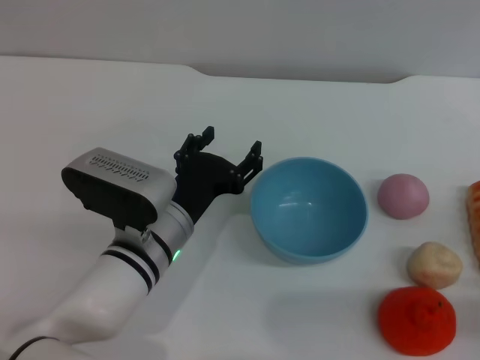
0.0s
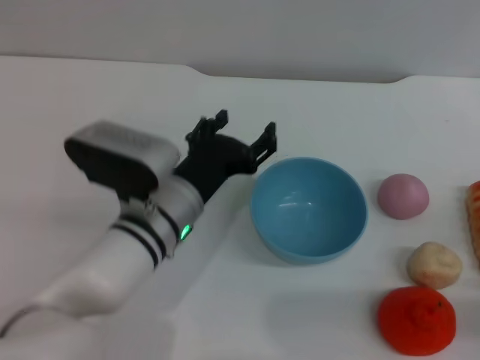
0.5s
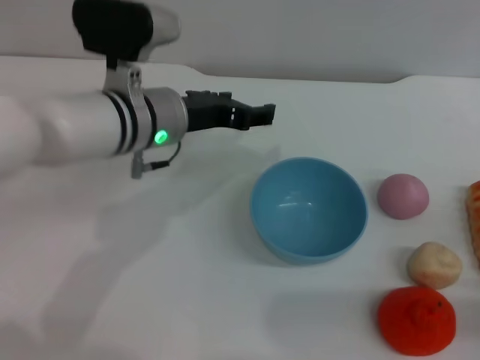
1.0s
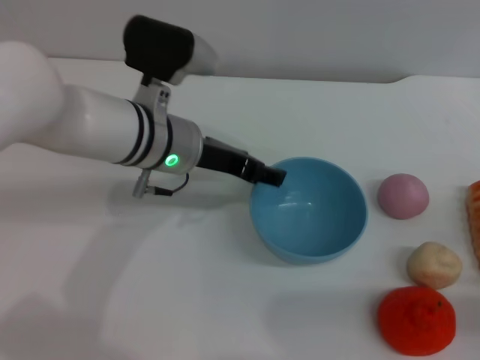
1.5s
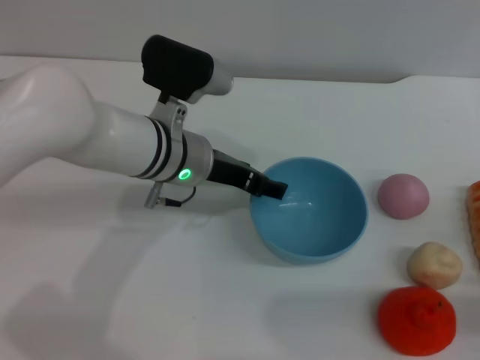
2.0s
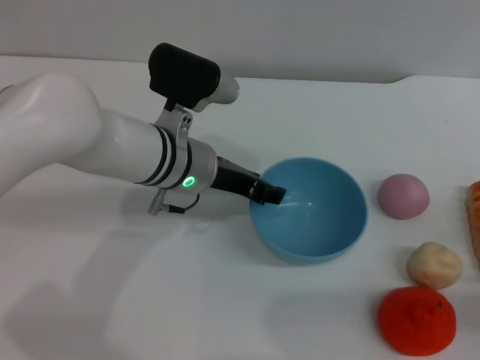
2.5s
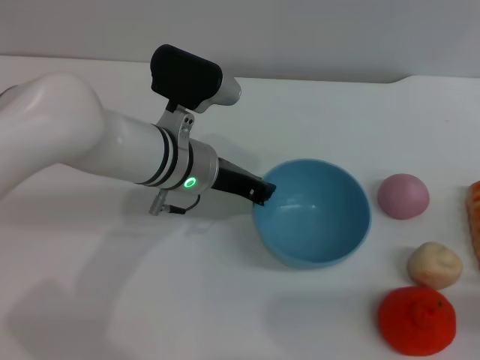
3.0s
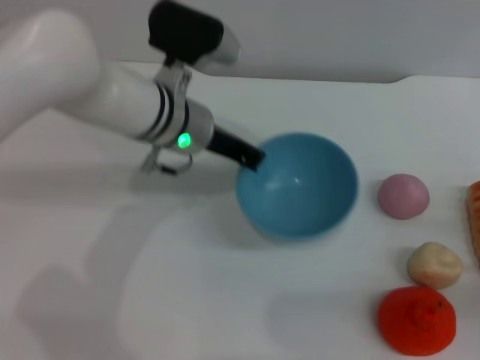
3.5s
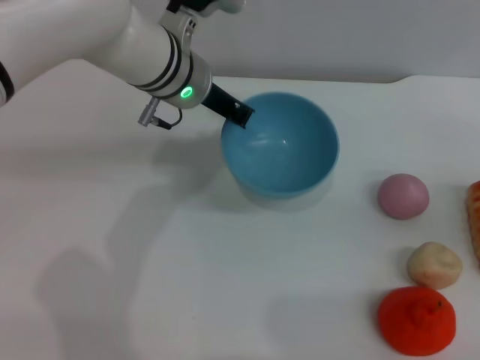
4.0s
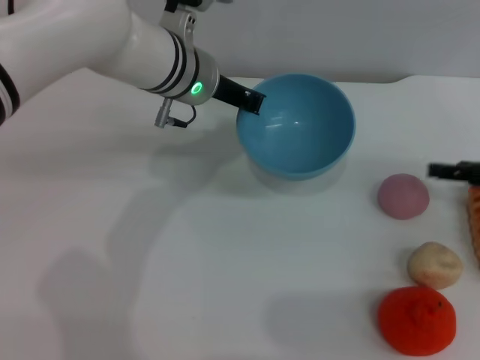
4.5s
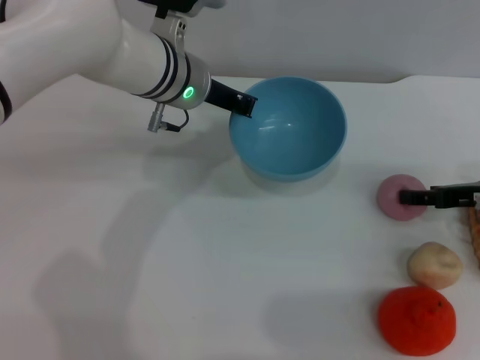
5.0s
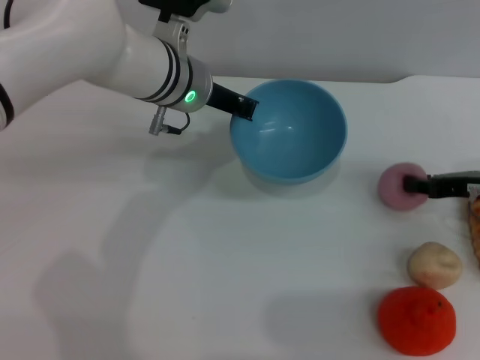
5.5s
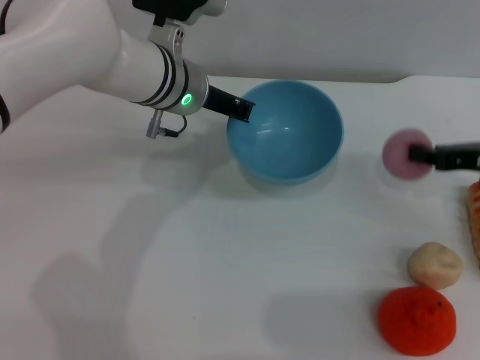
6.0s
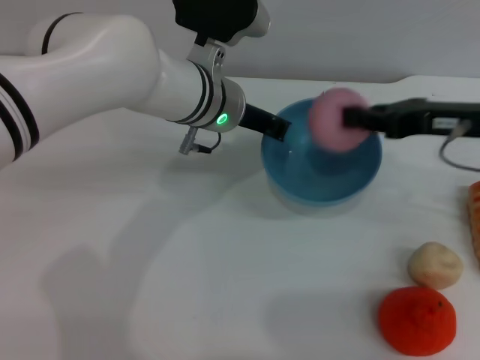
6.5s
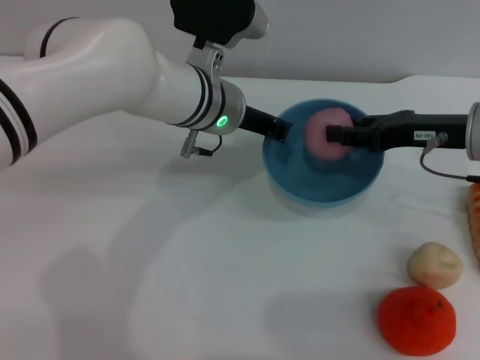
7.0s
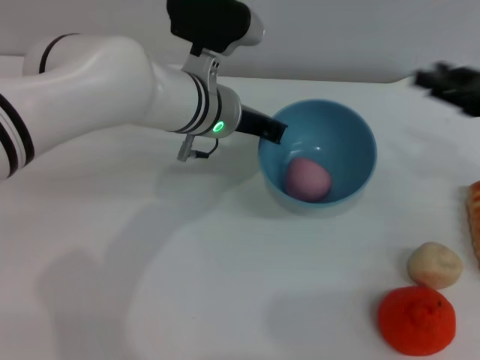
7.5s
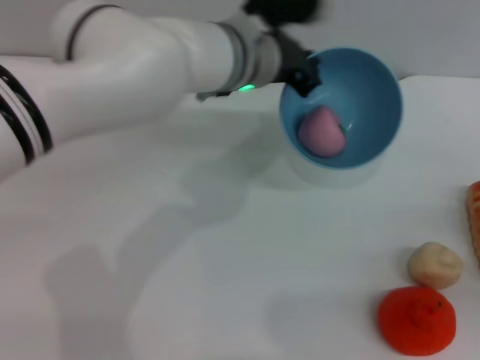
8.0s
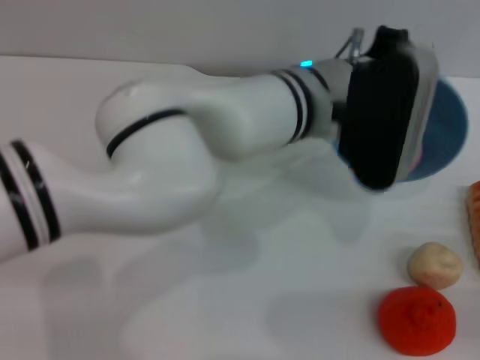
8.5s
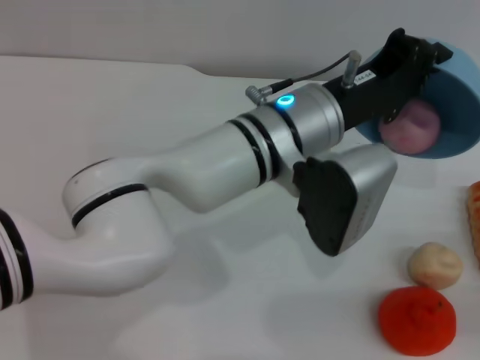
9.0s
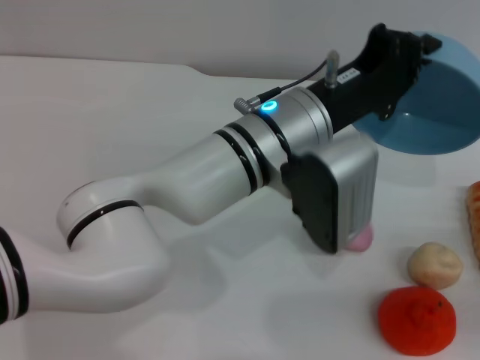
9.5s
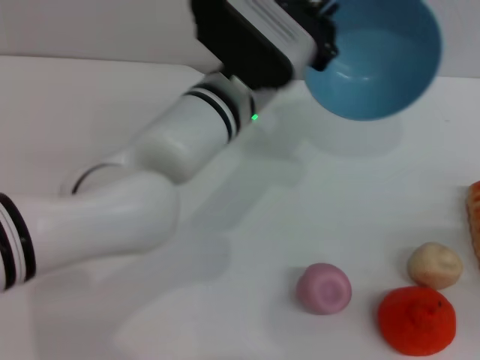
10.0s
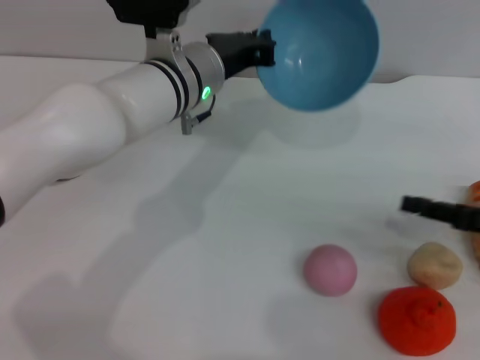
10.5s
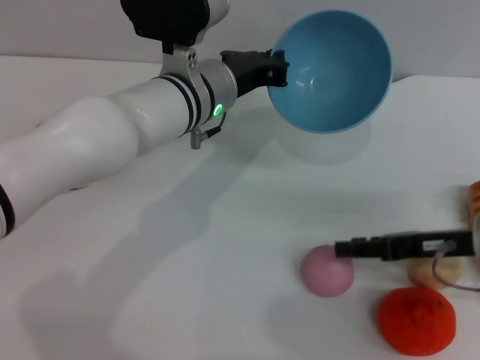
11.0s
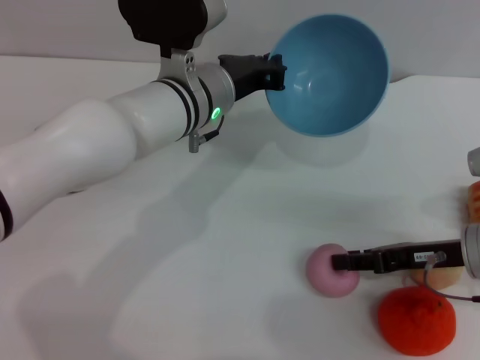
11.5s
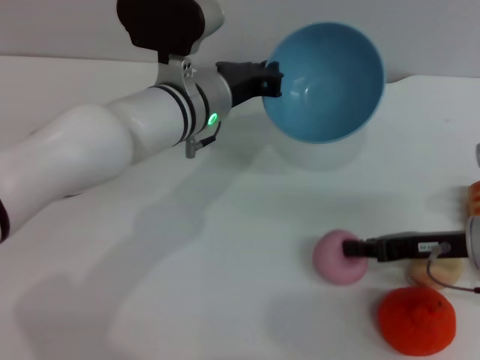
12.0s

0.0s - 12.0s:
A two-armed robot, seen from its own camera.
Task of the whole recording: put the peach into the blue bowl and pour it out repeatedly.
Step, 0.0s - 4.0s: Pick up the bowl with the left gripper.
Step, 4.5s - 5.5s: Pick up the peach with the right gripper.
Step, 6.0s - 7.5s: Place the peach into the bowl.
Step, 8.0s - 9.5s: Pour the peach out of bowl.
0.0s - 2.0s: The left gripper goes approximately 10 cm forward and upward.
2.0s - 4.0s: The left gripper travels upward and forward by roughly 10 cm, and closes; the right gripper goes approximately 15 cm forward, upward and to the right.
4.0s - 6.0s: The right gripper is displaced to the left and forward by about 10 cm, and closes its fingers.
6.0s - 8.0s: The left gripper heads to the right, covering roughly 5 cm; the right gripper goes approximately 15 cm backward and to the right, and opens its fingers.
10.0s - 12.0s: The left gripper changes place by about 5 cm; the right gripper shifts roughly 15 cm to the left and forward, and closes its fingers.

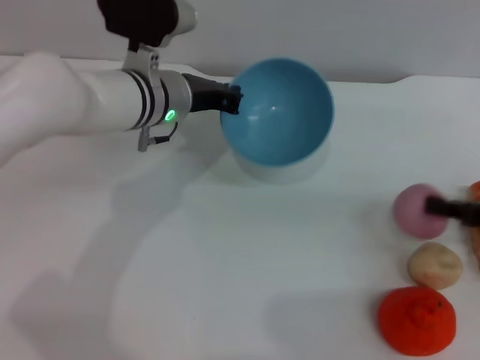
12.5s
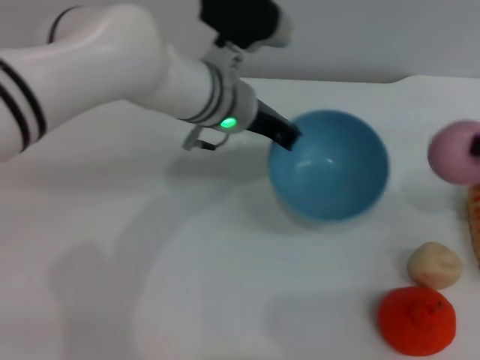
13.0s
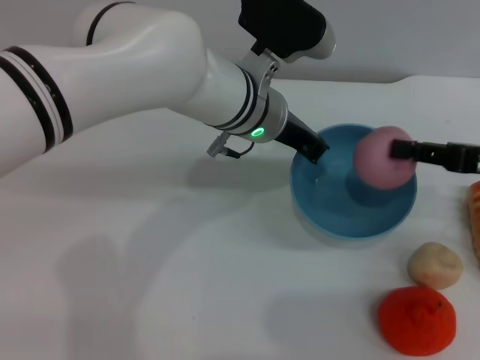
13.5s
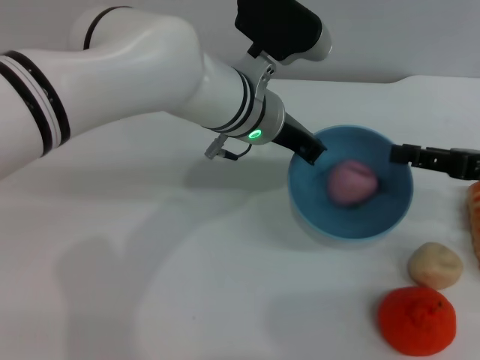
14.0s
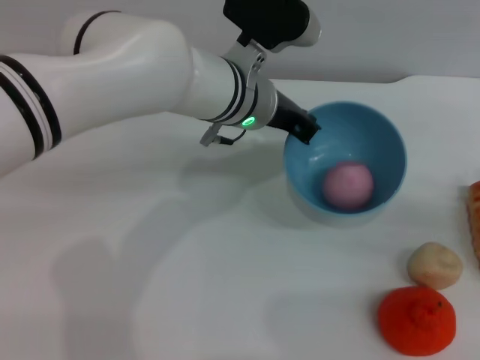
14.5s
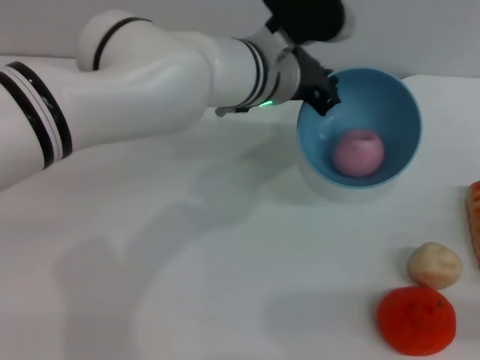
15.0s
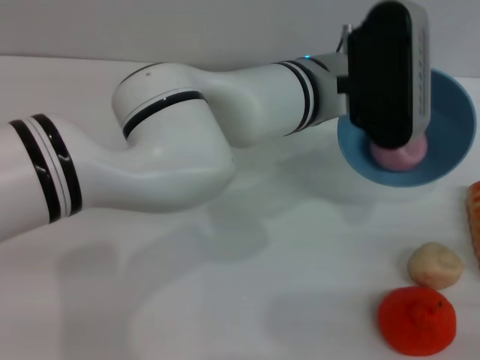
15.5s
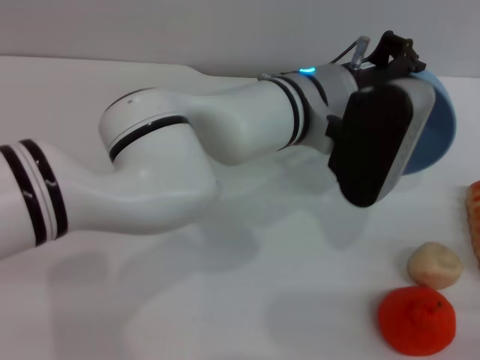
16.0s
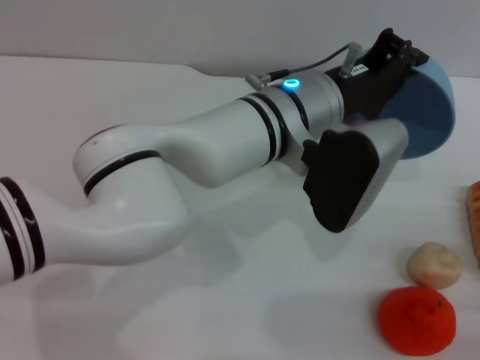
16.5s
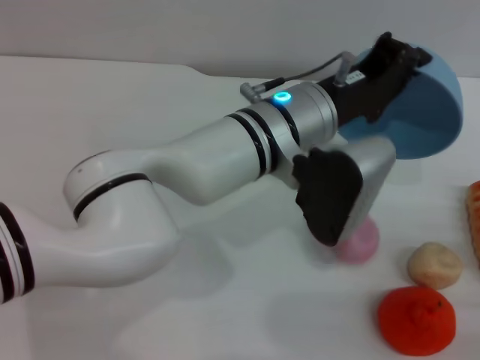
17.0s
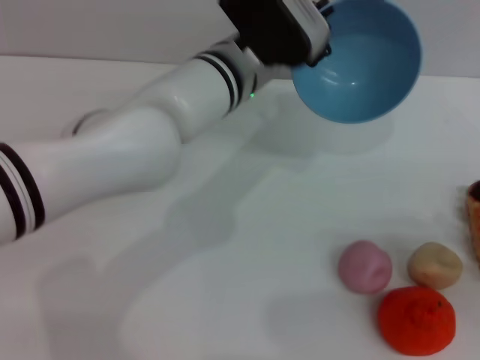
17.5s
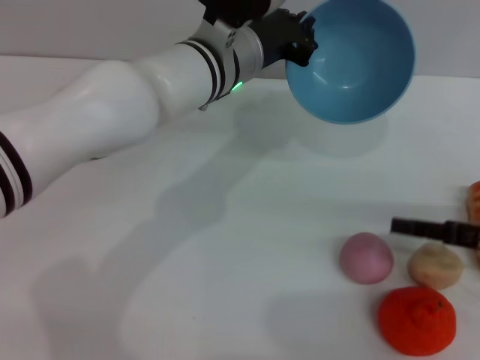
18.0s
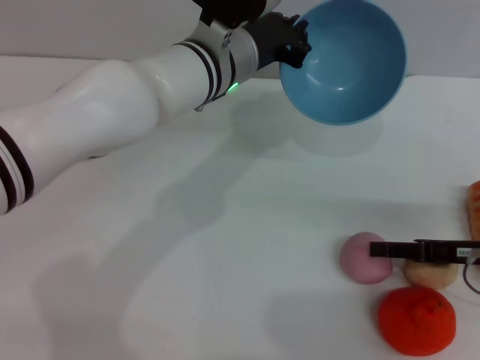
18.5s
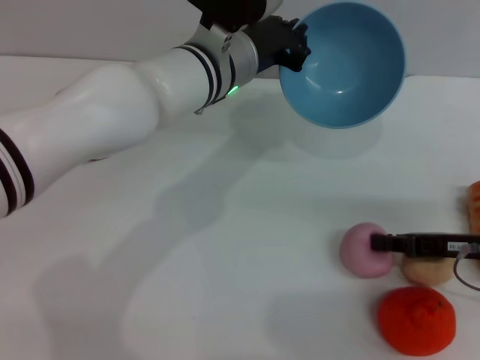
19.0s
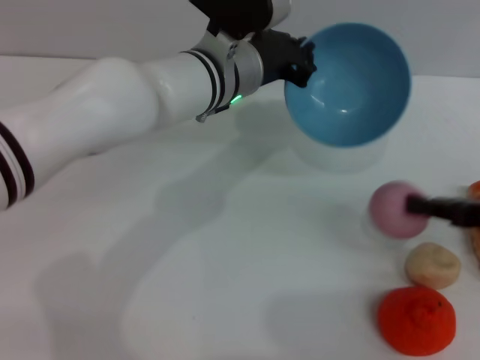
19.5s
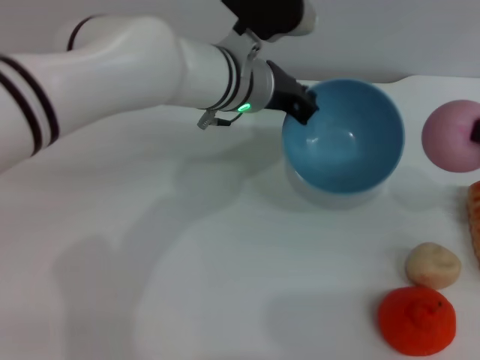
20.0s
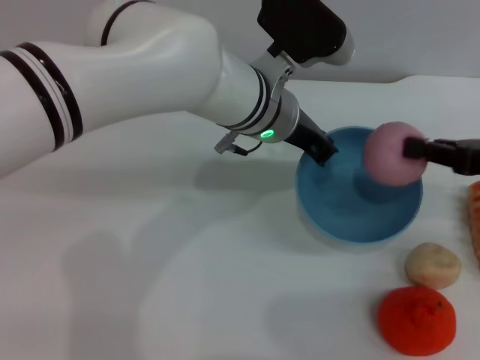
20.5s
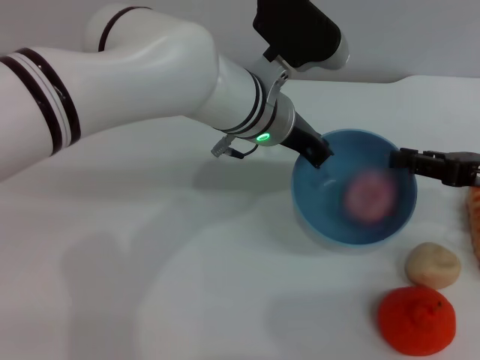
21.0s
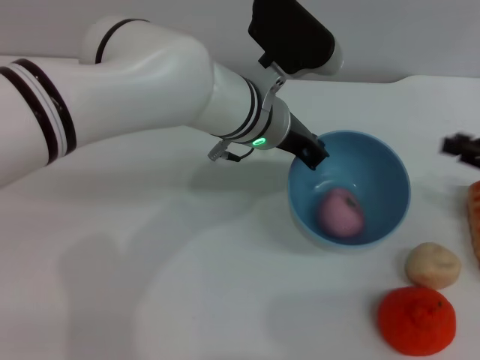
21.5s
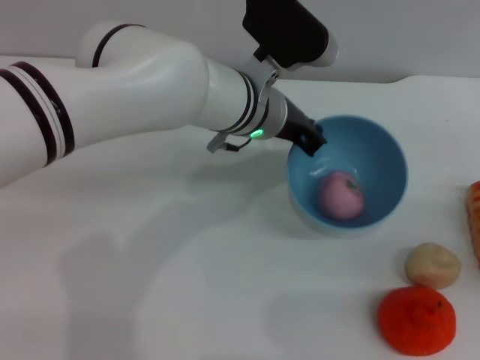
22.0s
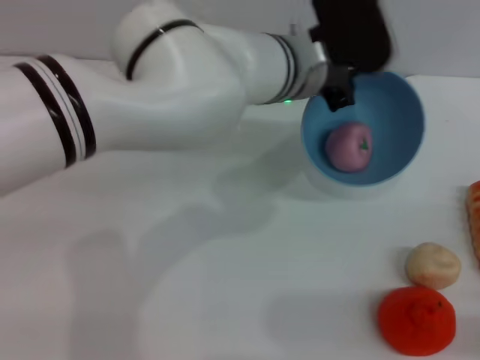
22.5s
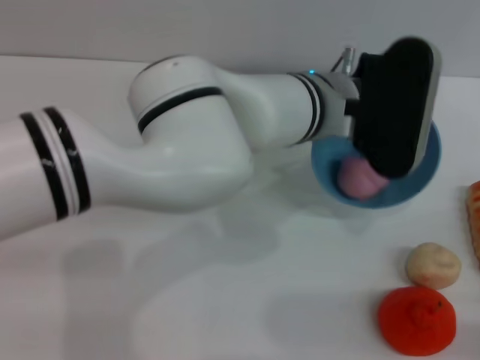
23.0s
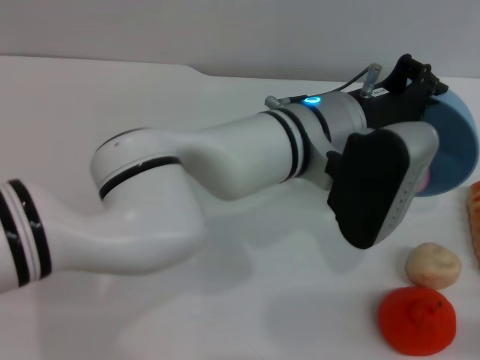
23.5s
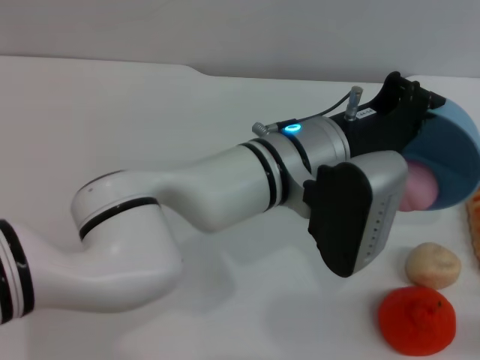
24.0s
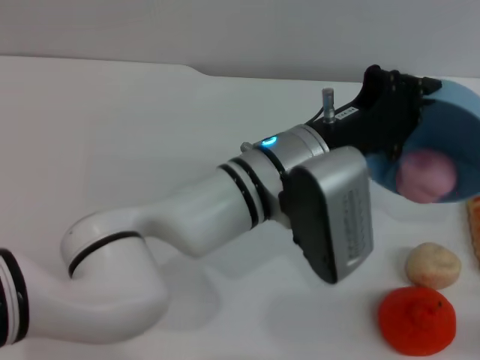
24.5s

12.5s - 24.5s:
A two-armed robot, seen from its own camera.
Task of the whole recording: put the peach into the blue bowl and pour it out repeatedly.
Step, 13.0s - 14.5s: Place the peach into the bowl.
Step, 15.0s - 17.0s: Pour the peach out of bowl.
Step, 17.5s - 19.5s: Pick up the peach with the right gripper.
Step, 20.0s - 21.0s: Place the peach into the bowl.
12.5s - 14.5s: The right gripper shifts about 5 cm to the right, and opens up; the left gripper heads to the right, covering about 10 cm.
14.5s - 16.5s: The right gripper moves backward and downward, approximately 10 cm; the left gripper shifts roughly 5 cm backward.
16.5s - 18.5s: The left gripper is displaced forward and to the left by roughly 10 cm. The right gripper is displaced forward and to the left by roughly 15 cm.
18.5s - 20.5s: The right gripper heads upward, covering about 10 cm, and closes its fingers.
20.5s - 22.5s: The right gripper is displaced backward, downward and to the right by approximately 20 cm, and opens.
22.5s - 24.5s: The left gripper is displaced backward by some 10 cm.

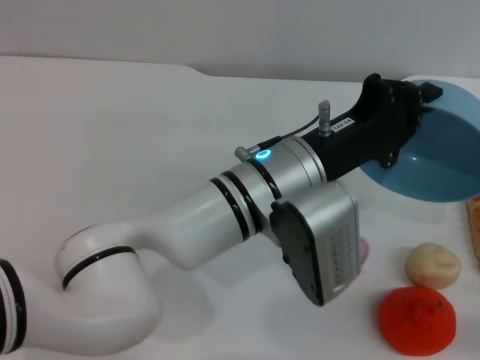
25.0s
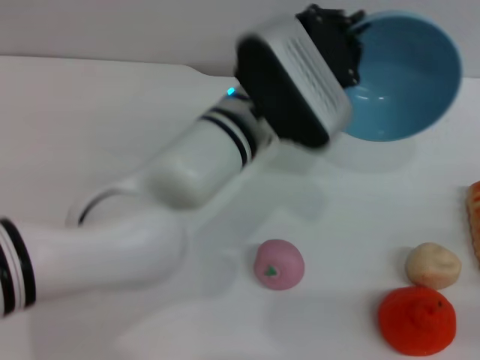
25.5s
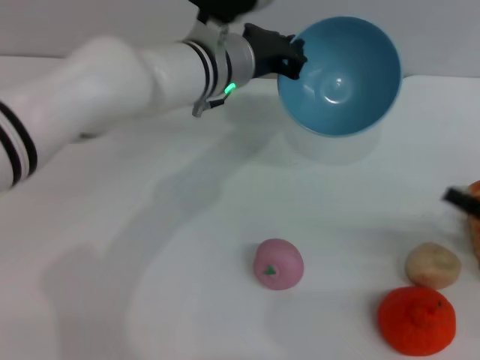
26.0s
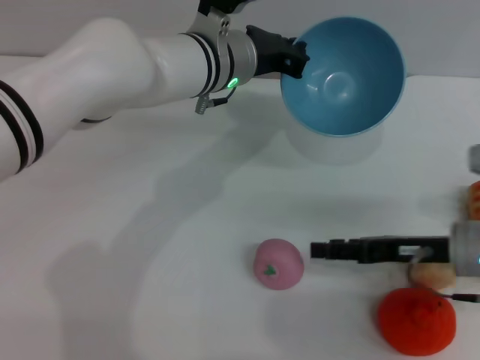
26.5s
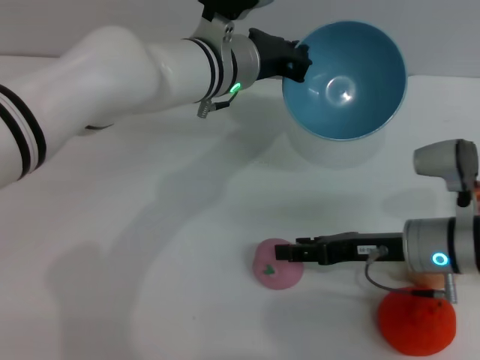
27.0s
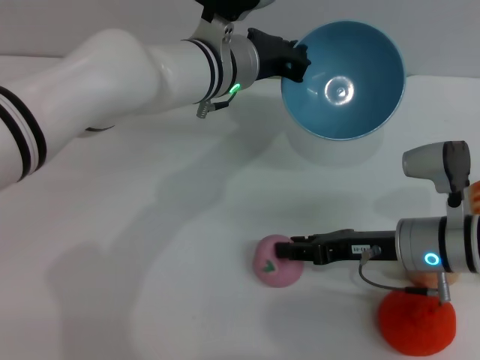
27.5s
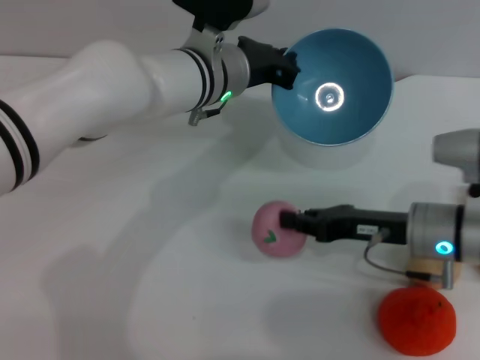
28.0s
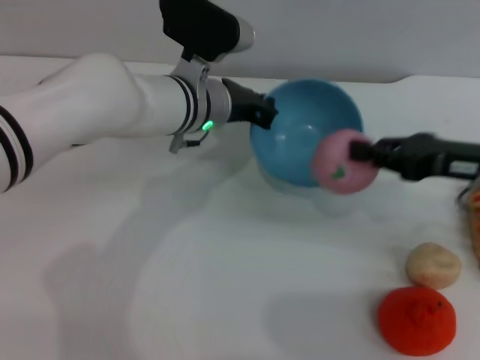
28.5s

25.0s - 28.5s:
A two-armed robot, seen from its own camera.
Task of the whole recording: put the peach into the blue bowl and pour it out repeatedly.
Step, 25.5s - 28.0s: Pick up the peach with the right gripper.
25.0s - 27.0s: The left gripper is displaced forward by approximately 15 cm, while the right gripper travels to the left and forward by some 20 cm.
27.0s - 28.5s: The right gripper shifts roughly 10 cm upward and to the right, and closes its fingers.
